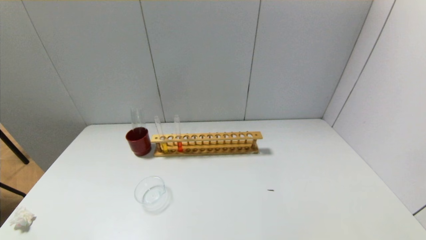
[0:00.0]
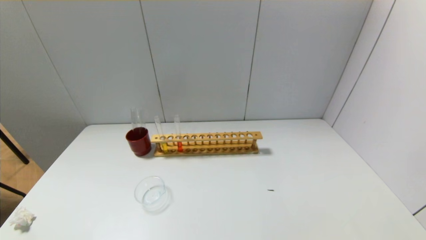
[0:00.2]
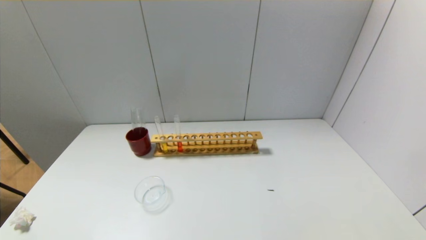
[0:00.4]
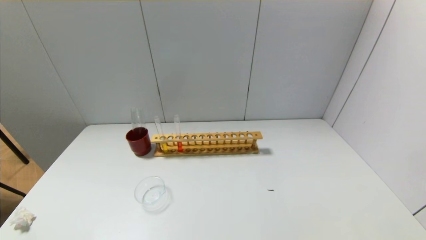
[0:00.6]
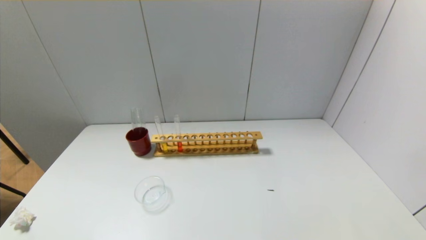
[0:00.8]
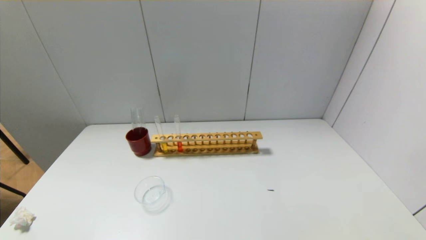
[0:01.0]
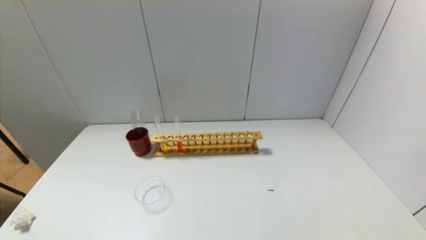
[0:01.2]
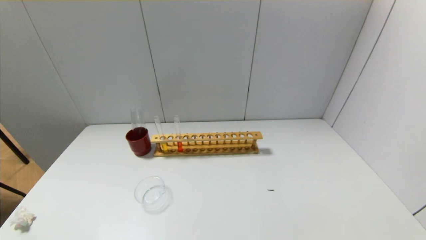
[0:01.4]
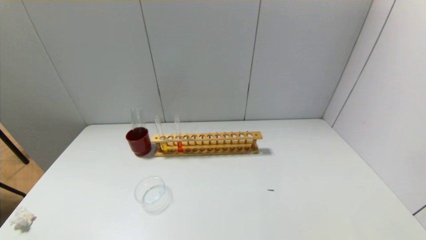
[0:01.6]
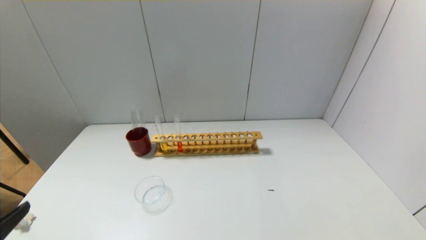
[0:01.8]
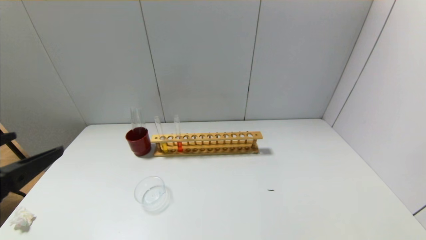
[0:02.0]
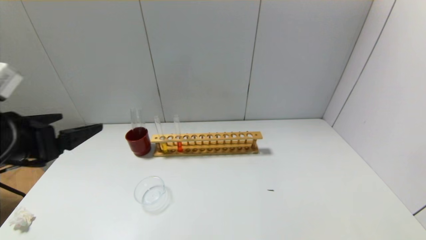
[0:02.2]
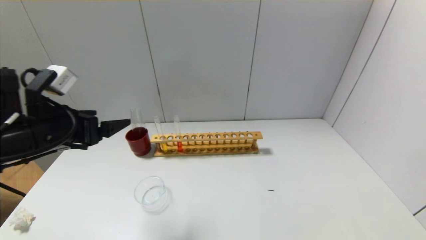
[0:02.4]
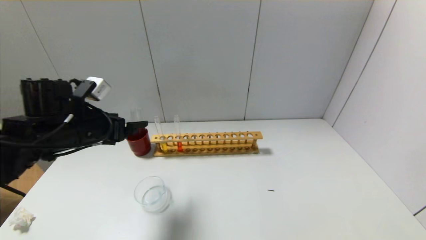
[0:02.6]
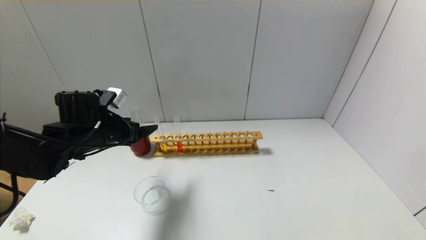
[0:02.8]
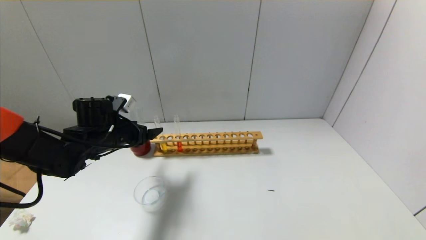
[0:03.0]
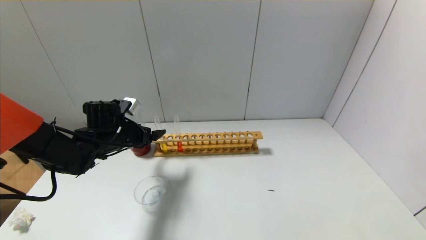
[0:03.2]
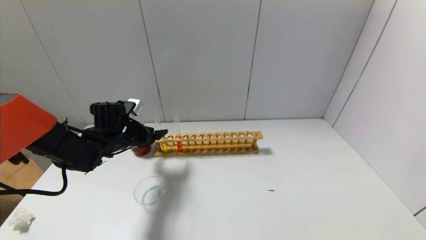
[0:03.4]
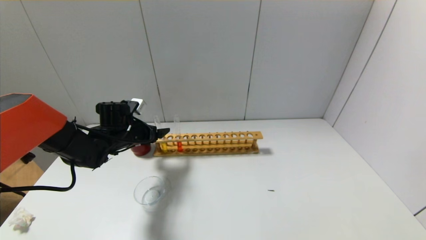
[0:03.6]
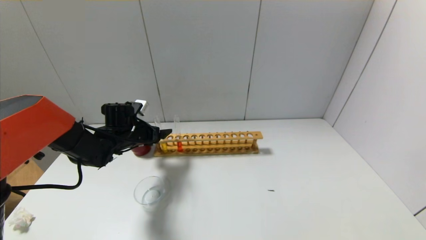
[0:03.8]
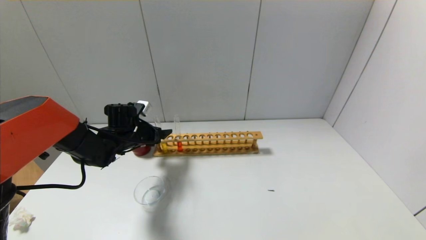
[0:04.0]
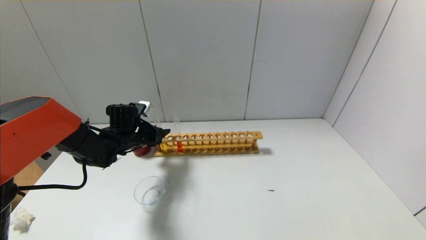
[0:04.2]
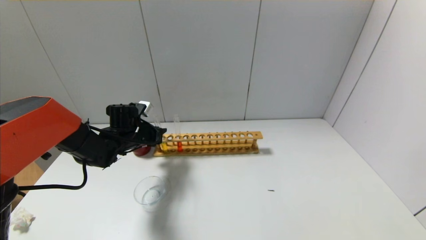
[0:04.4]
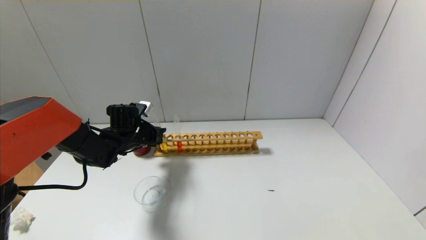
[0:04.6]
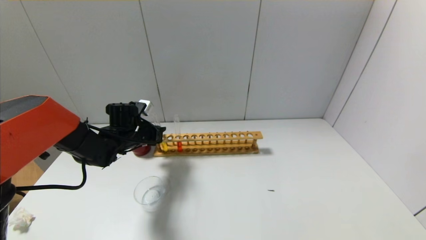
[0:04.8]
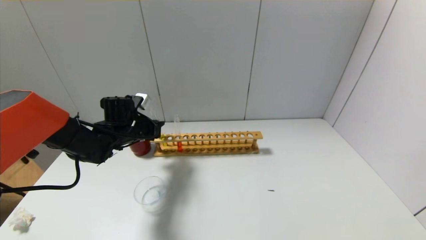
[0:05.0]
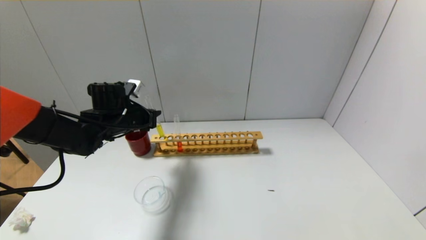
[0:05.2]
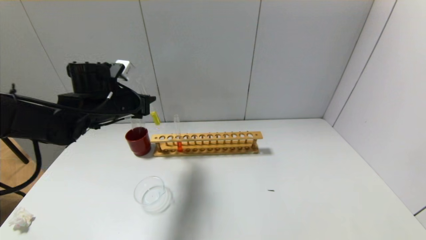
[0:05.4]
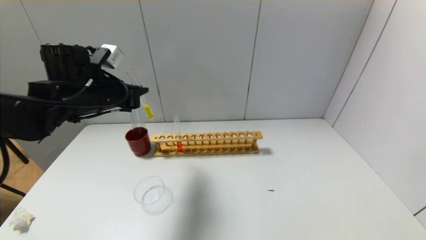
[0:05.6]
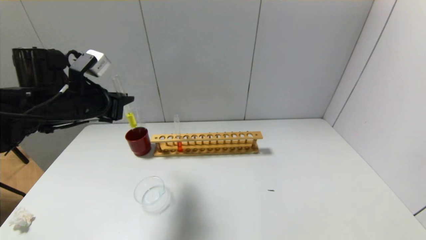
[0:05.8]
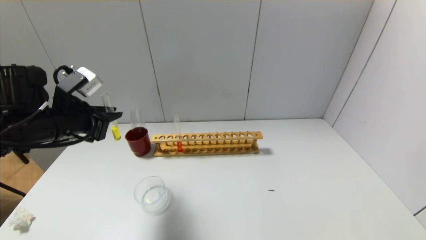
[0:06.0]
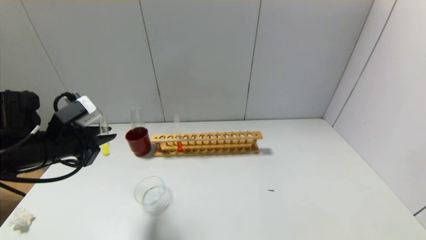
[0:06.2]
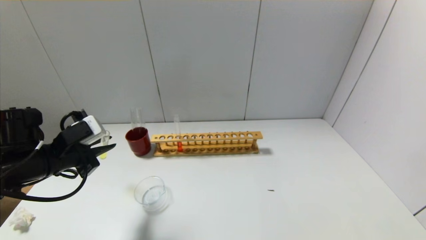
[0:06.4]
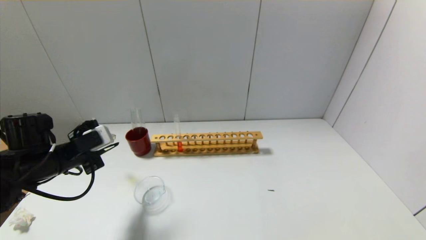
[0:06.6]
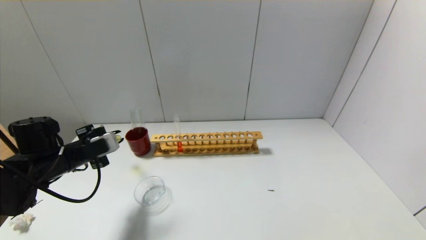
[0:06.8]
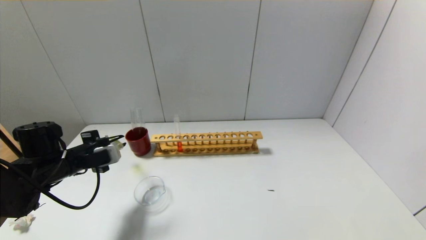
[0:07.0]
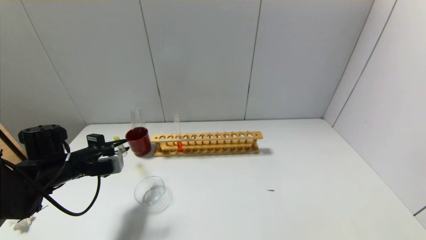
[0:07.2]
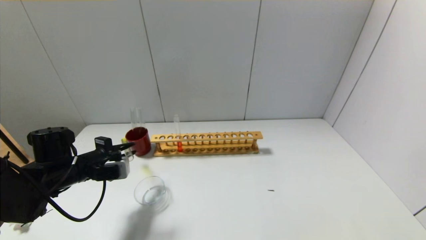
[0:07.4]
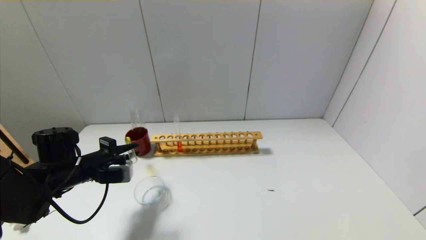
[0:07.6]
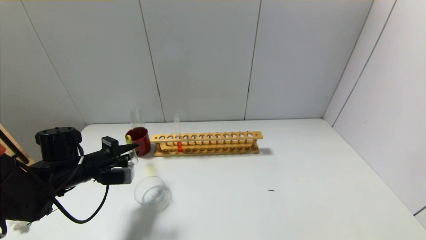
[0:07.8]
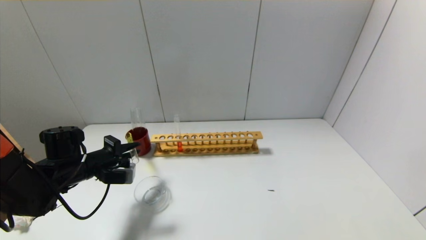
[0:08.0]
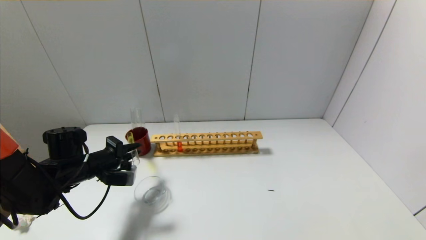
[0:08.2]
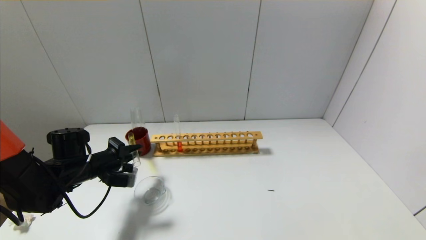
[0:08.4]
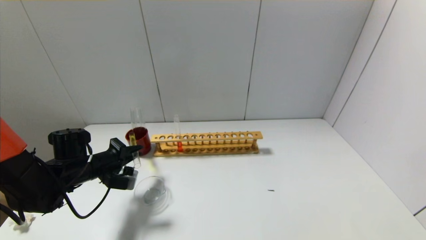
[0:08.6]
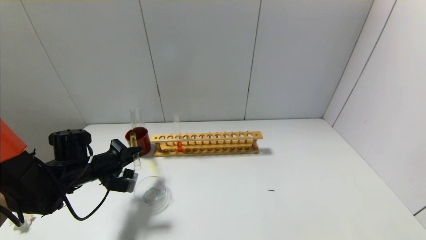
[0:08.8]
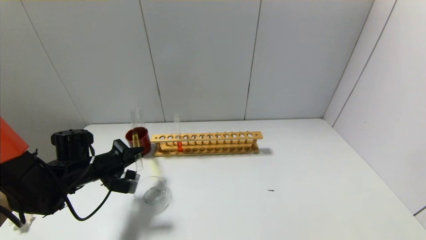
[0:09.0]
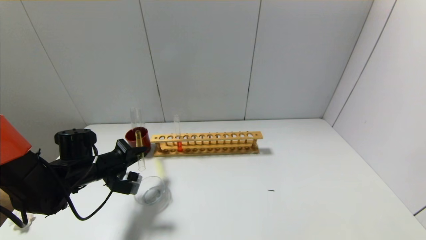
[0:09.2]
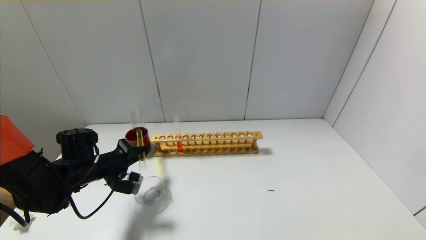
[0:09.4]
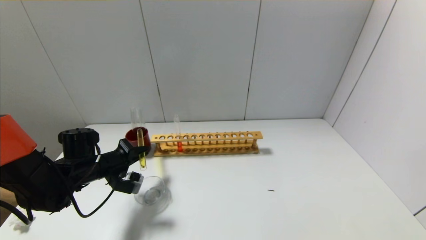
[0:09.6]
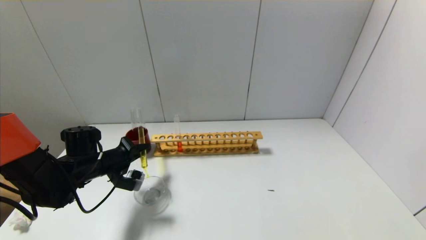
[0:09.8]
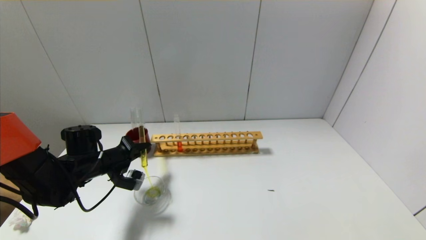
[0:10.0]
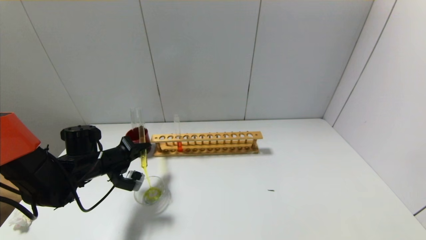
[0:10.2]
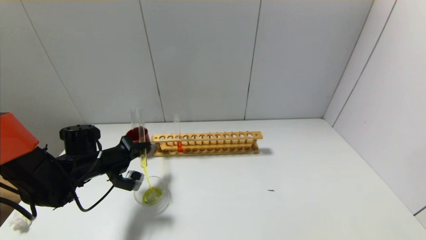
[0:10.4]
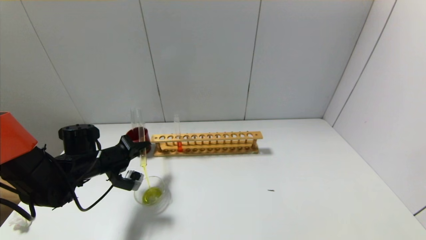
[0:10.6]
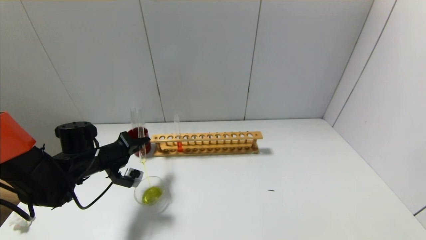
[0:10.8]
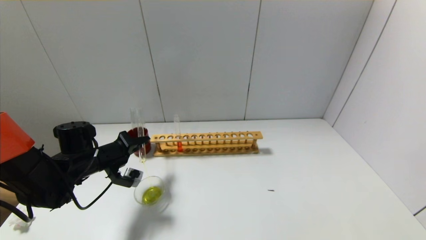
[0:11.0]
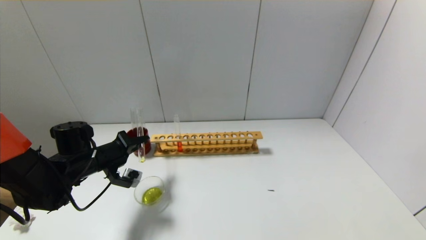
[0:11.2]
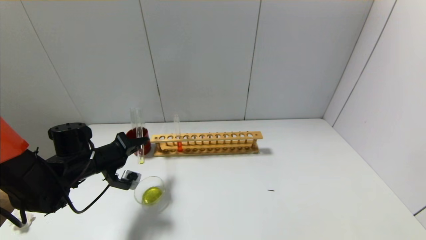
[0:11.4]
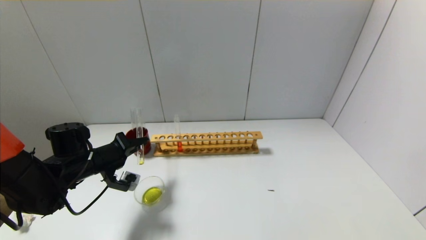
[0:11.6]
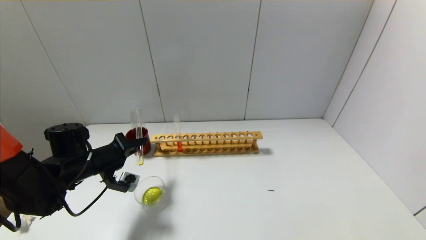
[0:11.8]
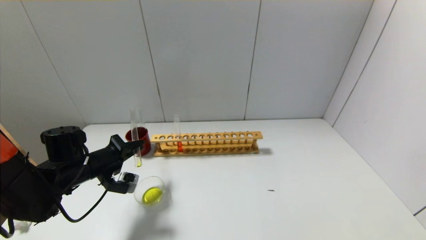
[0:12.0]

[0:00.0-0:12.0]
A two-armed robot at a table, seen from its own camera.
Step, 0:00.0 to 0:04.4: Grasp the yellow reagent with the left gripper.
0:01.6 to 0:03.0: The left gripper goes some 35 cm forward.
0:03.0 to 0:04.4: The left gripper shifts roughly 5 cm forward, and closes up.
0:04.4 to 0:06.0: The left gripper shifts roughly 20 cm backward, upward and to the left.
0:06.0 to 0:07.6: The left gripper travels downward by some 10 cm.
0:09.0 to 0:12.0: The grippers stay close to where they were, moving slightly.

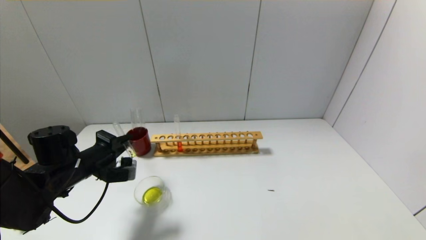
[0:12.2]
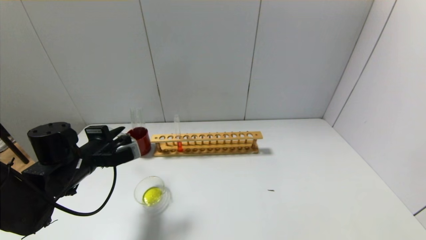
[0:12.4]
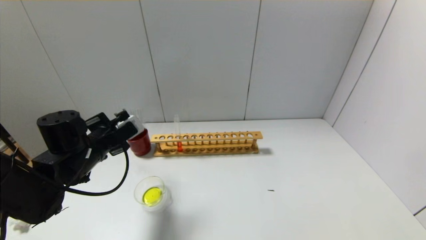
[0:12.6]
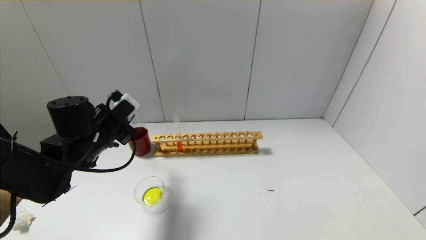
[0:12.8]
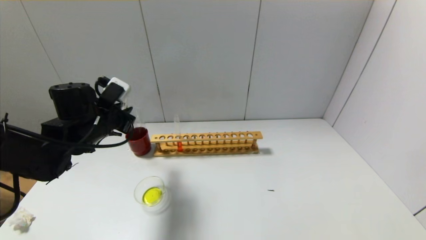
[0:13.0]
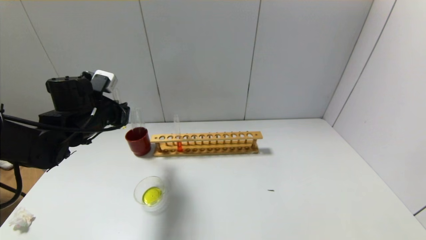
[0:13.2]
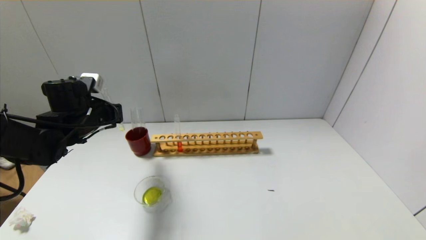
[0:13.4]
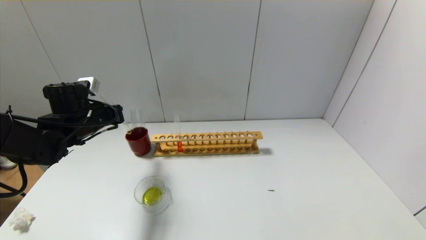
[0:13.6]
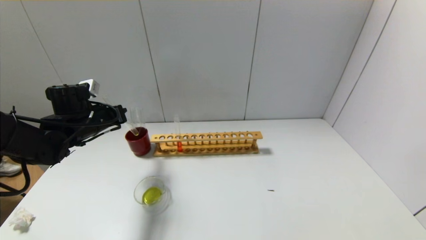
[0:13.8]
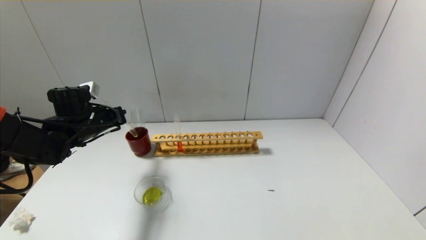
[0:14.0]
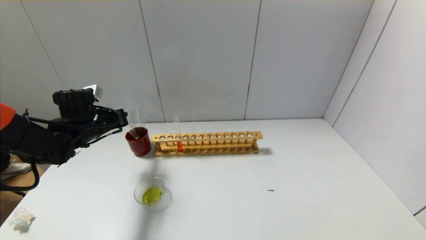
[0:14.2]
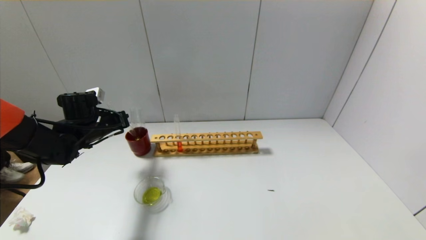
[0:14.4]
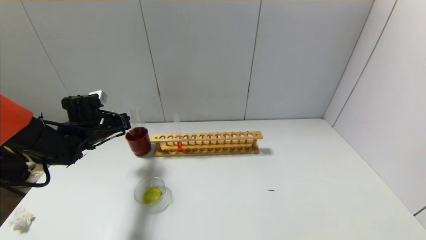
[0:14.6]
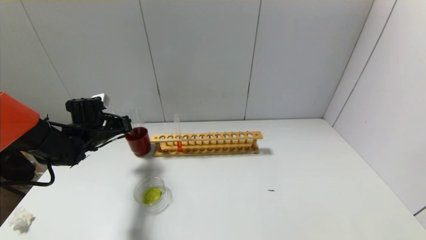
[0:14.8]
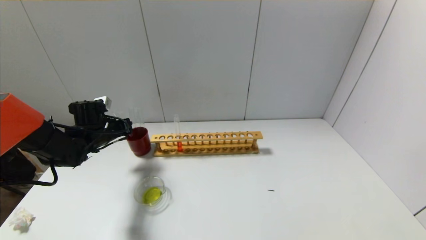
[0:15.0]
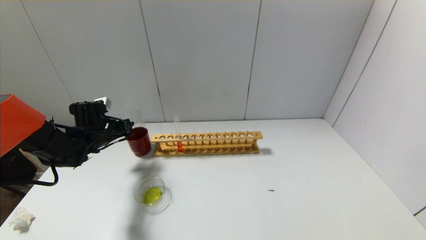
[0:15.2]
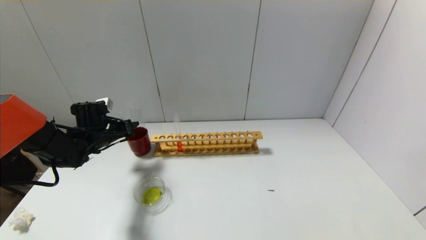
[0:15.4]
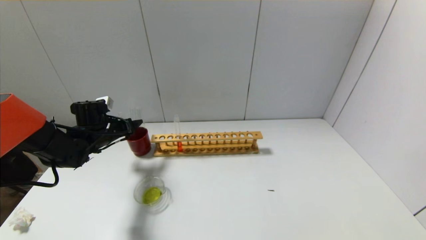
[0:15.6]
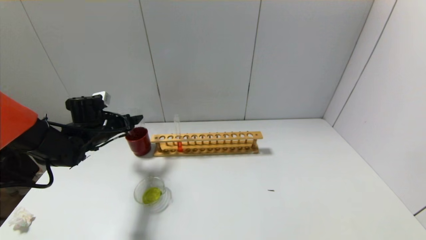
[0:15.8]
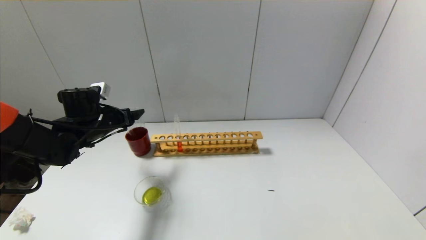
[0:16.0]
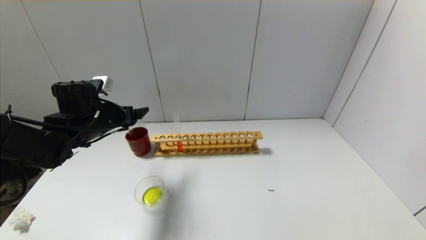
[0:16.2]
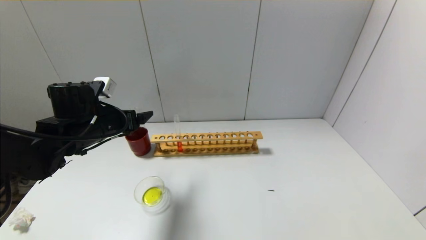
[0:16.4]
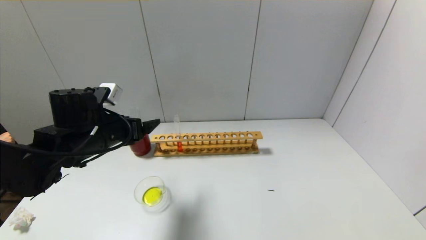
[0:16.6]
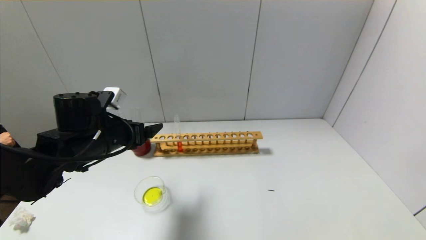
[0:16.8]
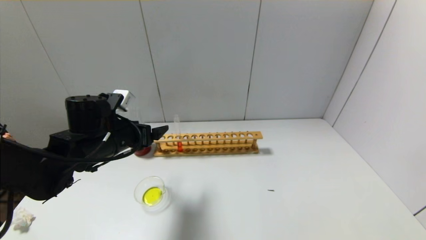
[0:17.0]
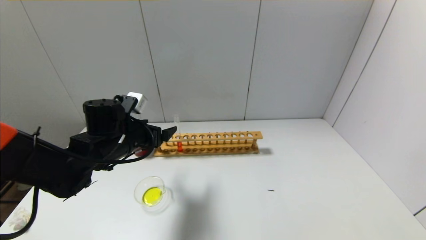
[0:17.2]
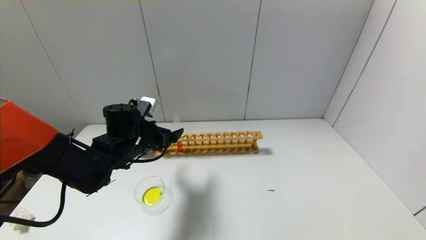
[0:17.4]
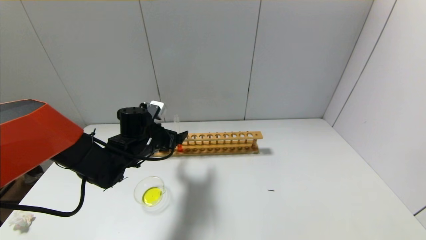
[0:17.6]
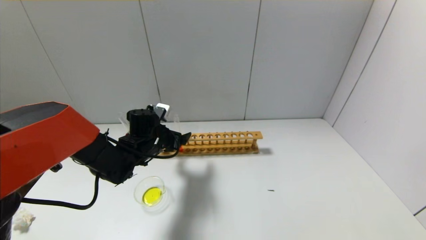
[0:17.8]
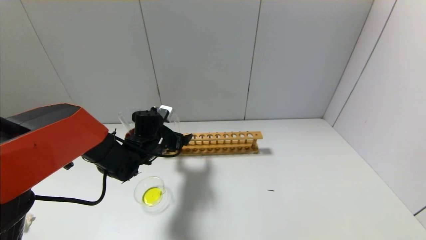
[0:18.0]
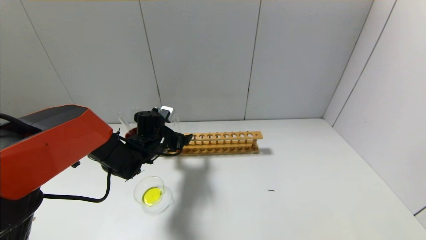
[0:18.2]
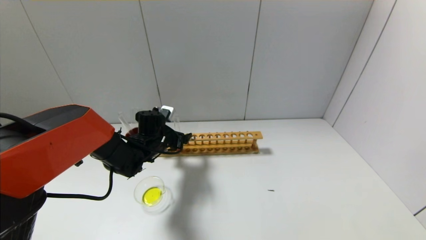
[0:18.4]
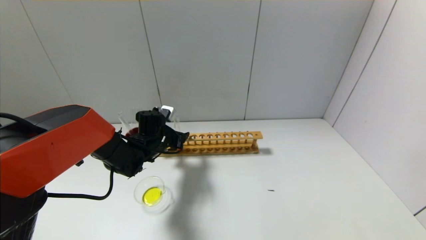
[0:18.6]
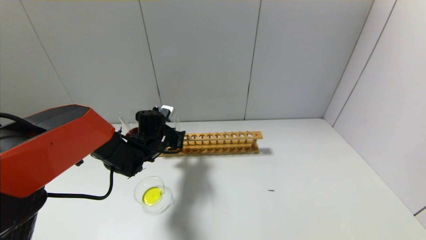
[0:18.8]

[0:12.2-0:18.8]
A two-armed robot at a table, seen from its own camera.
Step, 0:12.6 to 0:15.6: Place the test tube into the brown cup with the left gripper.
0:12.2 to 0:13.8: The left gripper travels forward and upward by some 10 cm.
0:13.8 to 0:15.4: The left gripper shifts about 5 cm downward, and opens its fingers.
0:15.4 to 0:17.2: The left gripper is displaced to the right and backward by approximately 15 cm, and opens up.
0:17.2 to 0:18.8: The left gripper is displaced forward and downward by roughly 10 cm, and closes up.
